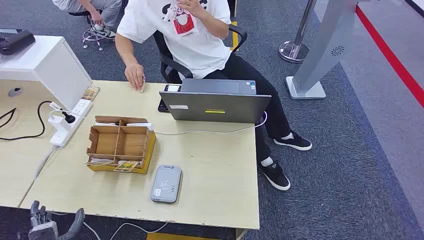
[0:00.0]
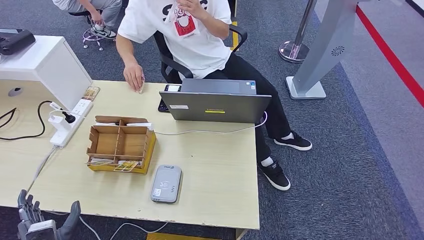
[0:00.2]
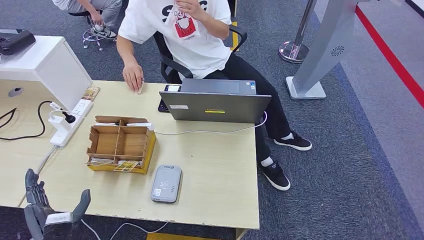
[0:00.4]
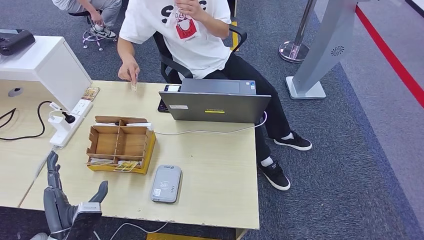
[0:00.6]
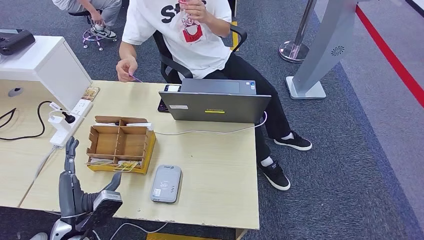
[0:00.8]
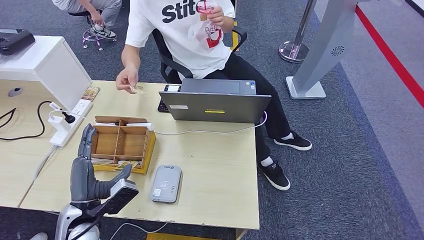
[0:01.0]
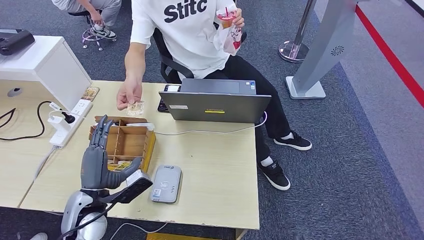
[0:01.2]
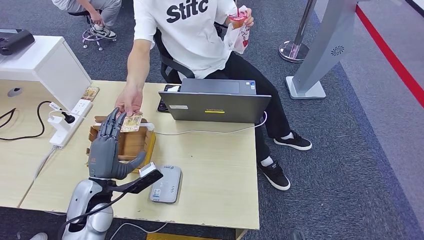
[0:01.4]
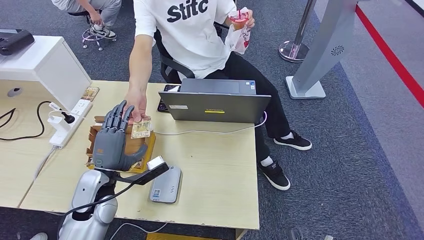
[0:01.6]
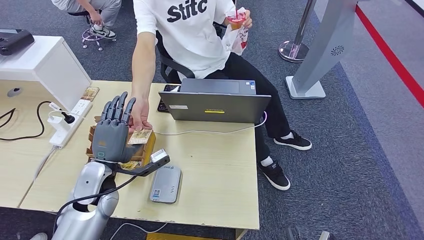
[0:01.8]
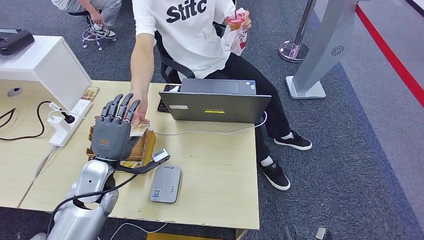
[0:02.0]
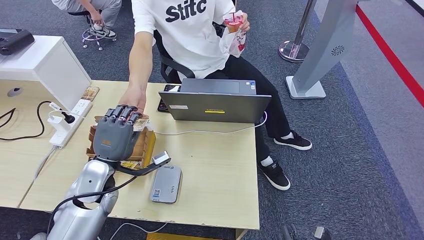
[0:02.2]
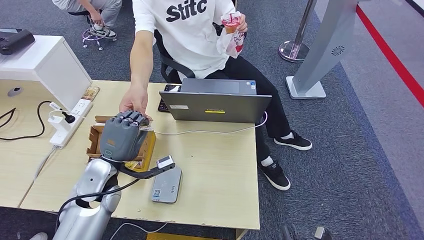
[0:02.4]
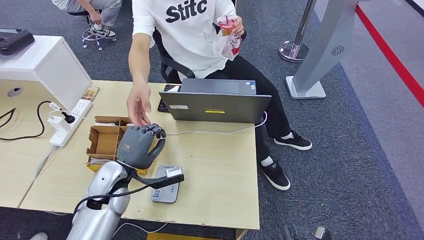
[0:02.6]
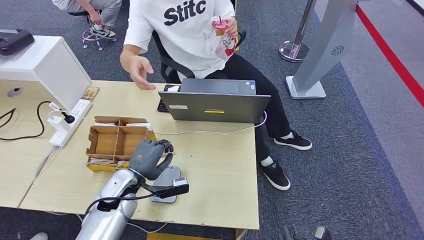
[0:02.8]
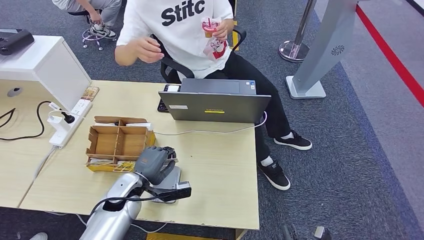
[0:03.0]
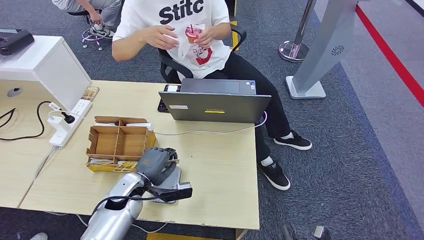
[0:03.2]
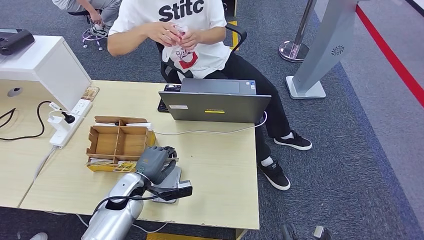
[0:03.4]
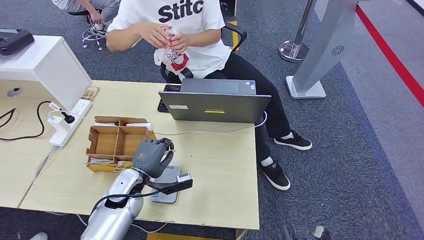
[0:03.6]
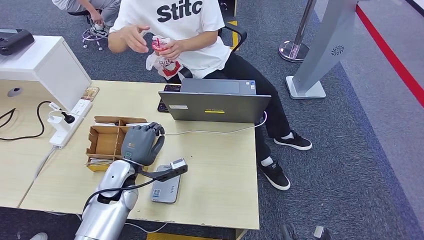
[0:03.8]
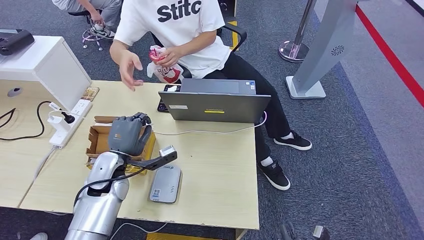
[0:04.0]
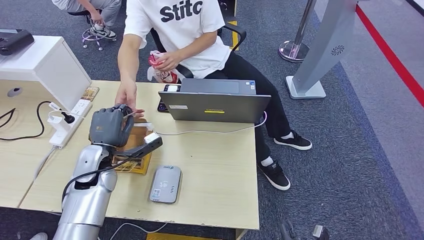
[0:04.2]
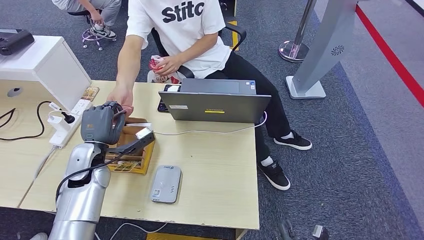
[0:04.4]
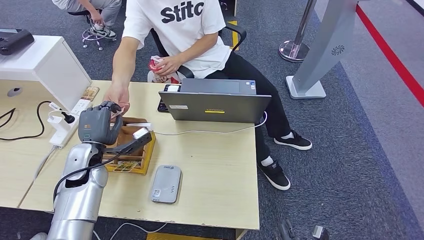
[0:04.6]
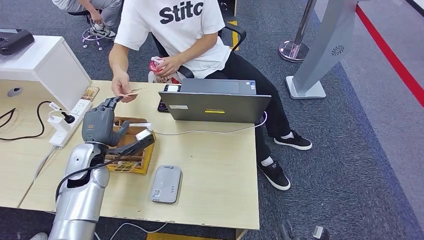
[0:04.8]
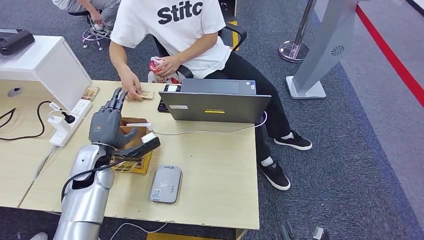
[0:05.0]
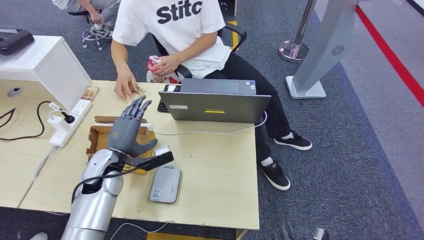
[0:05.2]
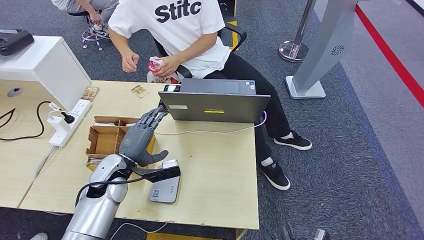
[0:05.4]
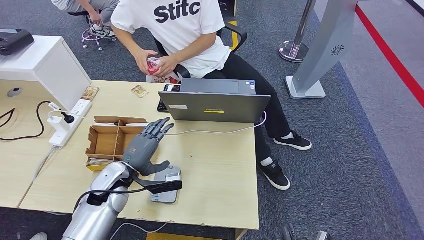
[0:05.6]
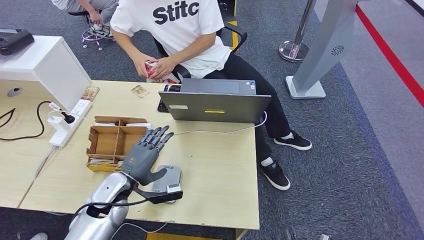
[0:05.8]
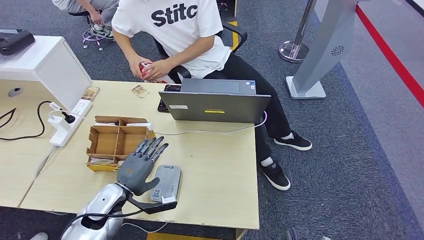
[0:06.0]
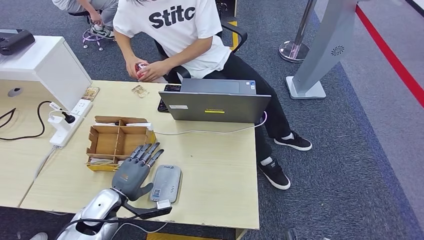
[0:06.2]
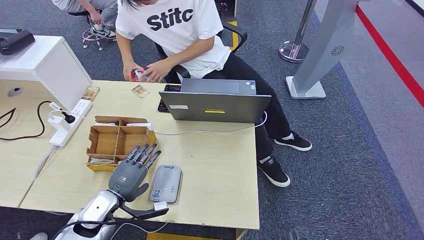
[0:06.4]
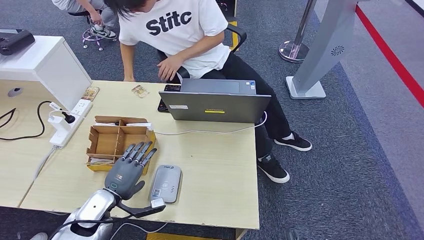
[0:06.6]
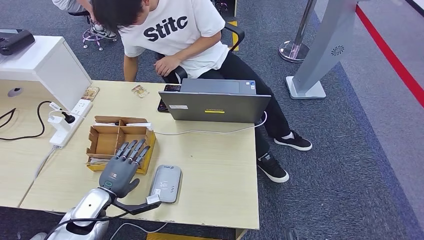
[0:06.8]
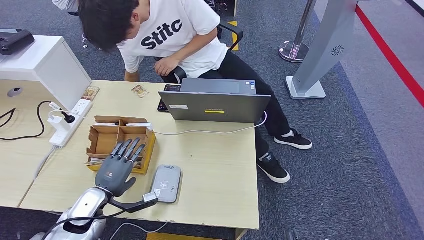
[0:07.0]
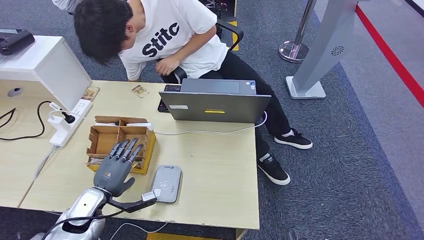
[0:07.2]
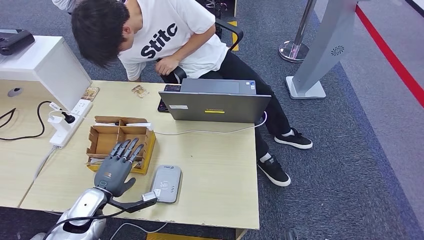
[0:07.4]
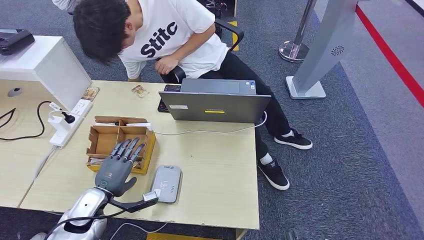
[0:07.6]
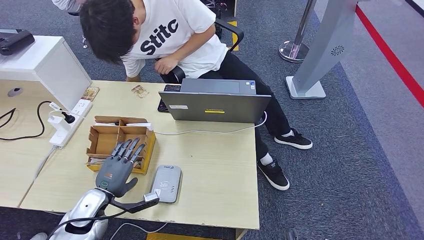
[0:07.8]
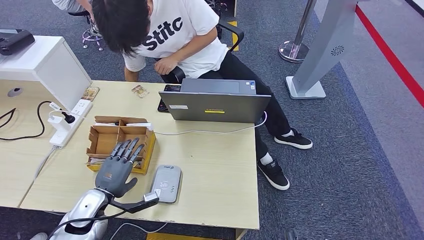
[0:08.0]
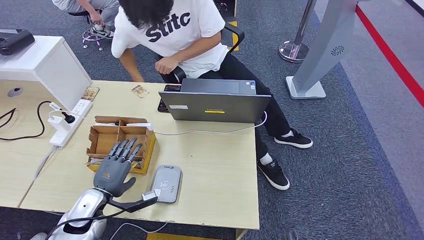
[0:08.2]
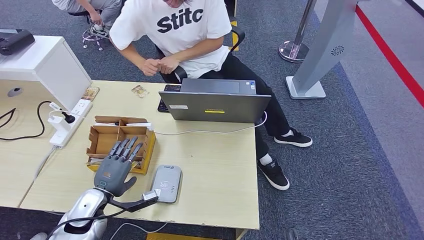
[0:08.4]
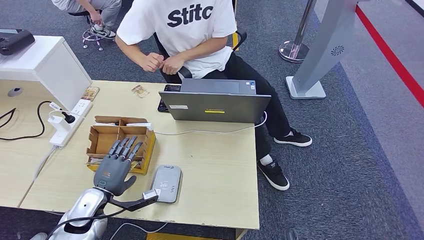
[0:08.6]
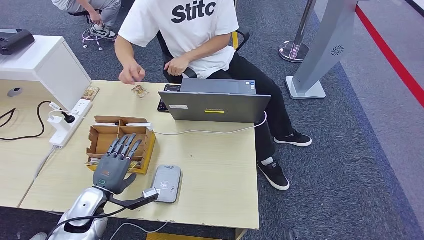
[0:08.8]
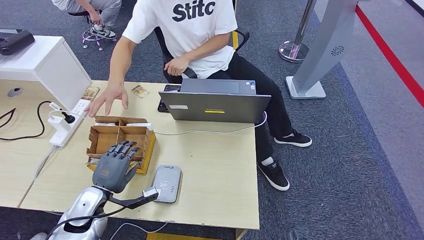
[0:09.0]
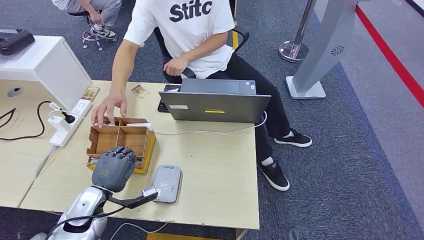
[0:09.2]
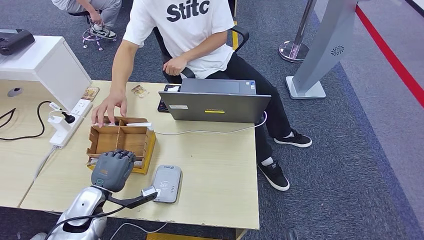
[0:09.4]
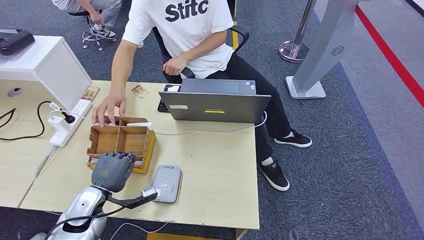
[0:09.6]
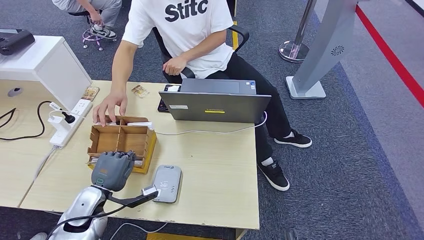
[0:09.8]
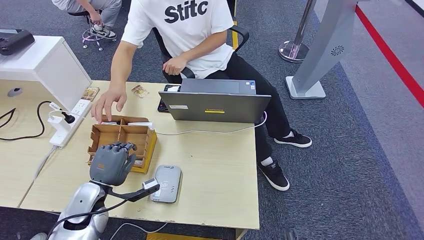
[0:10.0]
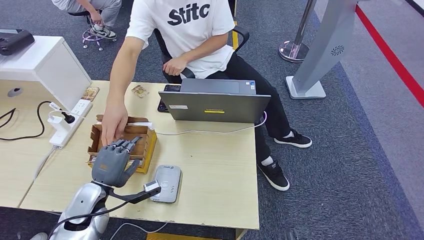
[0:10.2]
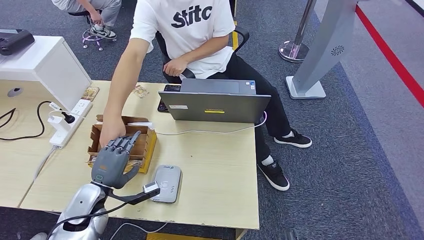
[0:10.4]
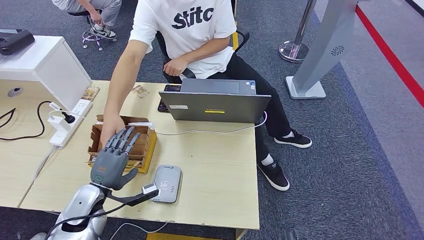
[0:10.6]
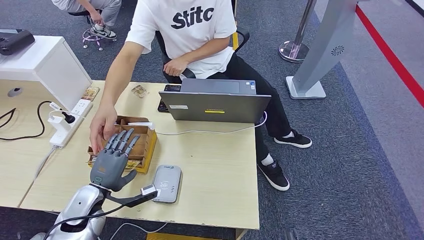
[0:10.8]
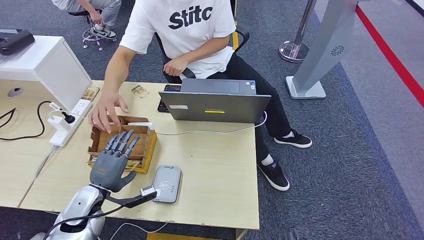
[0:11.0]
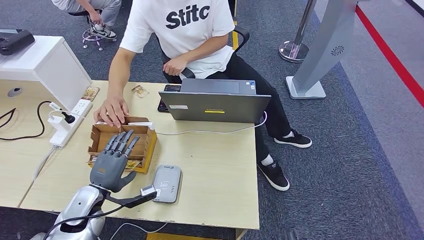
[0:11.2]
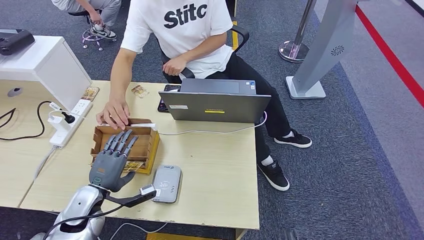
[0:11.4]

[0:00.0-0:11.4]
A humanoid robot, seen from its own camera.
Step, 0:00.0 to 0:02.4: Take the ID card from the person's hand.
Step, 0:02.8 to 0:03.0: Place the ID card on the card reader.
Step, 0:03.8 to 0:04.6: Hand the ID card to the person.
0:01.4 to 0:02.8: The left hand changes place by about 5 cm.
0:02.8 to 0:04.2: The left hand is displaced to the left and upward by roughly 5 cm.
0:04.2 to 0:05.6: The left hand ends up some 5 cm from where it was.
0:05.6 to 0:07.2: The left hand is displaced to the left, backward and downward by roughly 10 cm.
0:07.2 to 0:08.6: Both hands stay put.
0:08.6 to 0:11.4: The hands stay close to where they were, moving slightly.

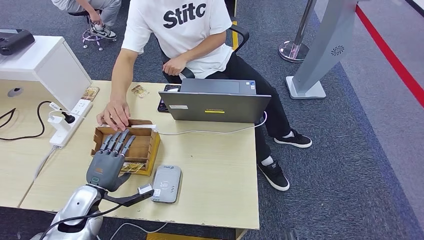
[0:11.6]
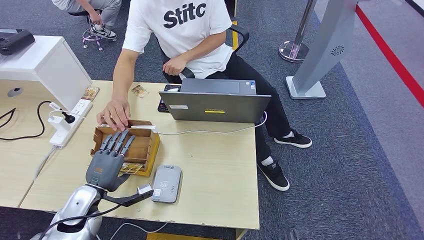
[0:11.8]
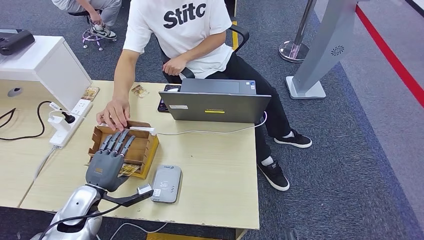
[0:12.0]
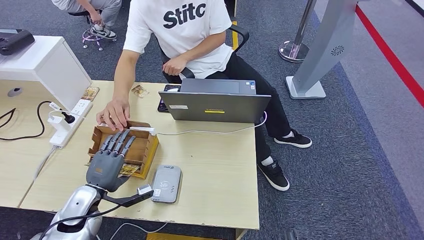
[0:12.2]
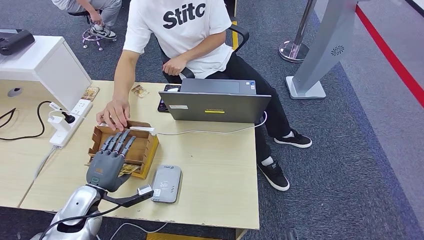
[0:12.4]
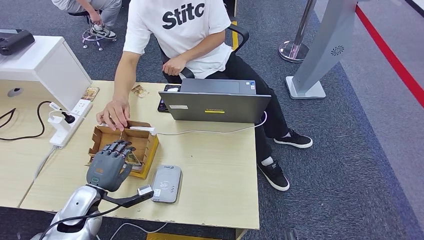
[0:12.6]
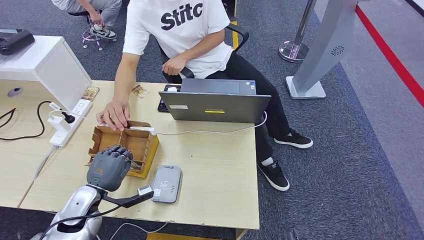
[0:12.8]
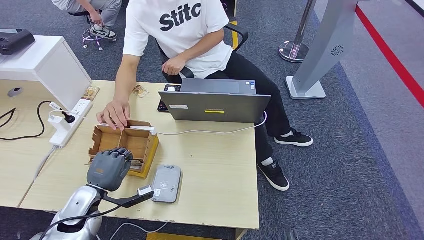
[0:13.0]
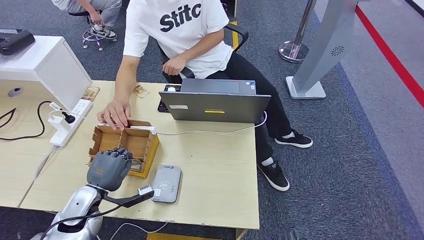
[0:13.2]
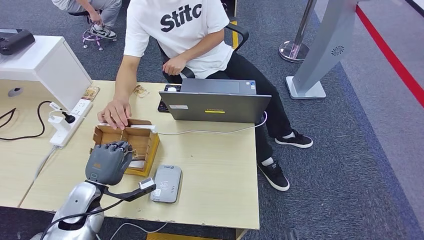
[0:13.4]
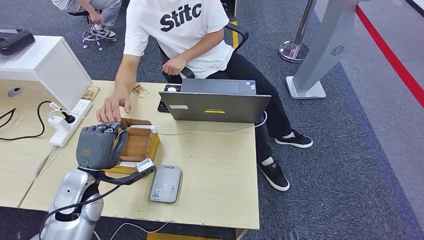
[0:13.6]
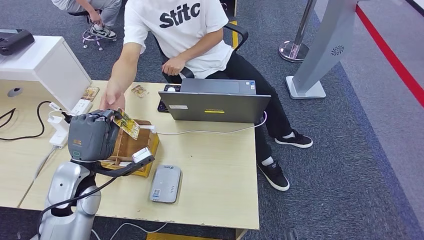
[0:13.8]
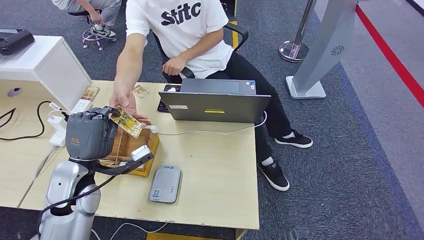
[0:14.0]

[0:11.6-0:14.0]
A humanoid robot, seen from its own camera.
Step, 0:12.0 to 0:13.4: Pick up the room key from the key card box.
Step, 0:13.6 to 0:14.0: Hand the room key to the person.
0:11.6 to 0:12.8: The two hands keep their place.
0:12.8 to 0:14.0: The left hand is displaced upward by roughly 10 cm.
